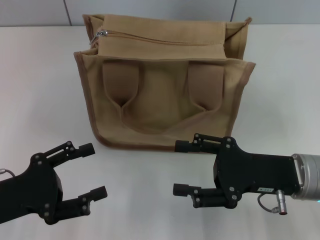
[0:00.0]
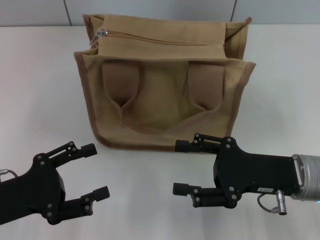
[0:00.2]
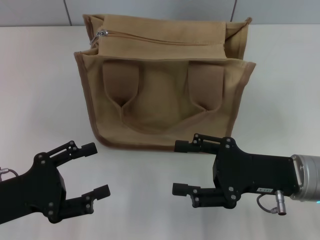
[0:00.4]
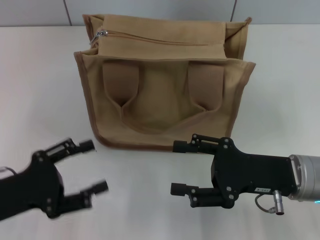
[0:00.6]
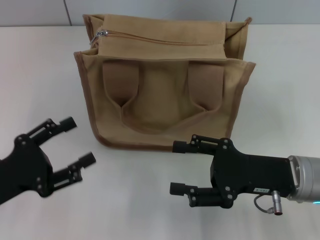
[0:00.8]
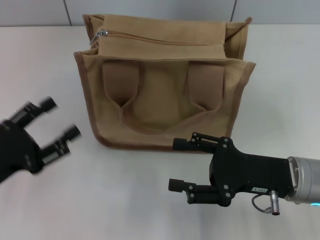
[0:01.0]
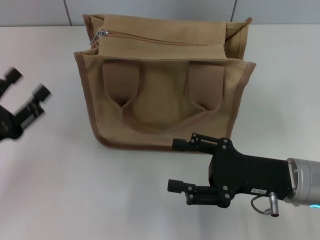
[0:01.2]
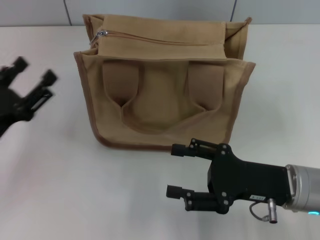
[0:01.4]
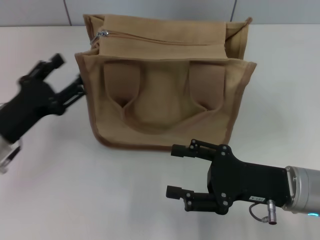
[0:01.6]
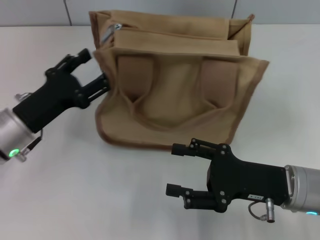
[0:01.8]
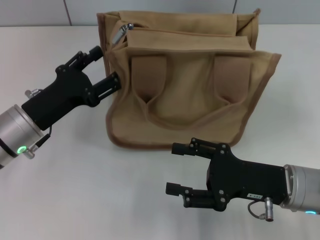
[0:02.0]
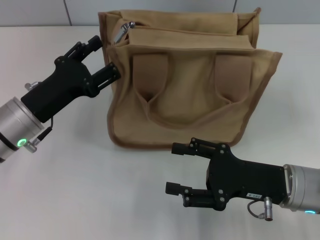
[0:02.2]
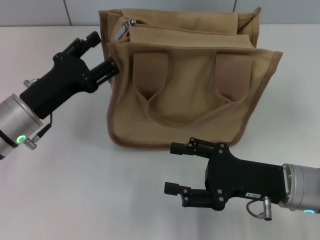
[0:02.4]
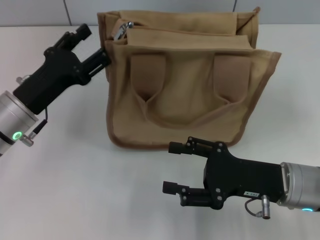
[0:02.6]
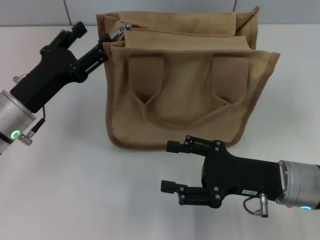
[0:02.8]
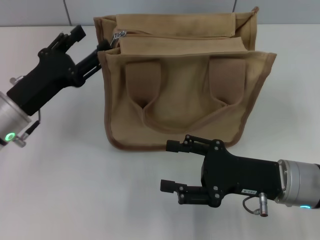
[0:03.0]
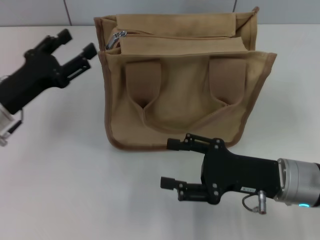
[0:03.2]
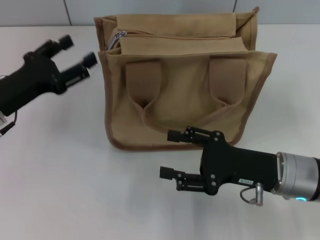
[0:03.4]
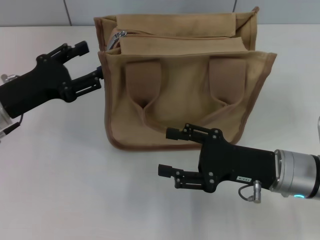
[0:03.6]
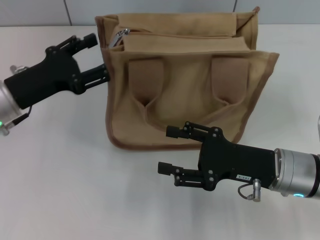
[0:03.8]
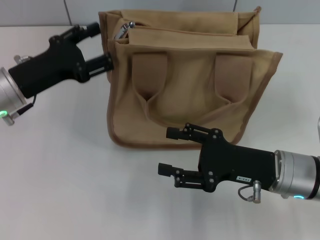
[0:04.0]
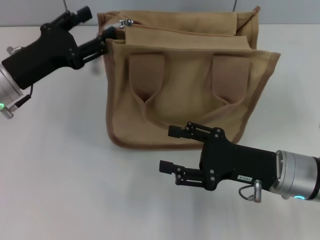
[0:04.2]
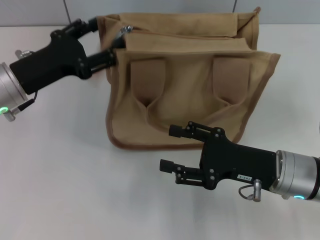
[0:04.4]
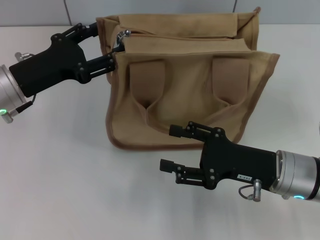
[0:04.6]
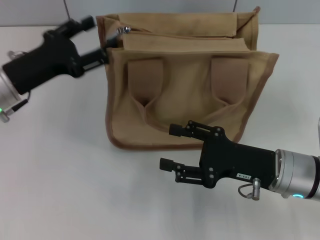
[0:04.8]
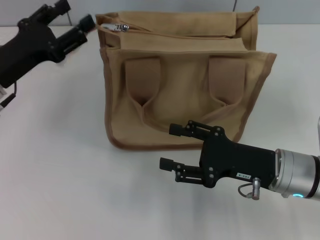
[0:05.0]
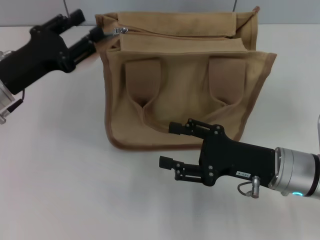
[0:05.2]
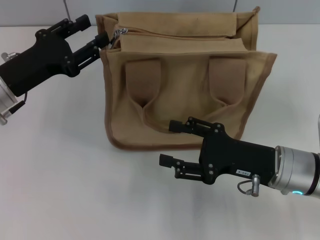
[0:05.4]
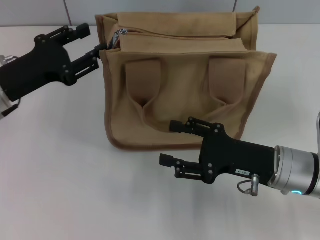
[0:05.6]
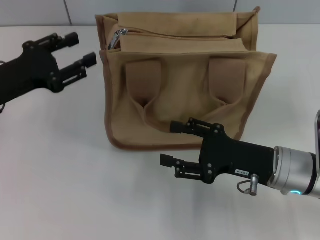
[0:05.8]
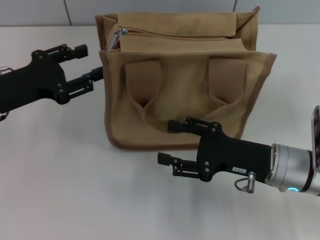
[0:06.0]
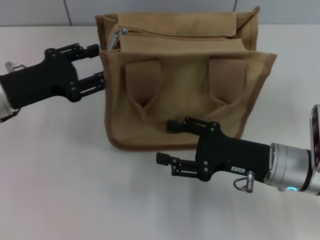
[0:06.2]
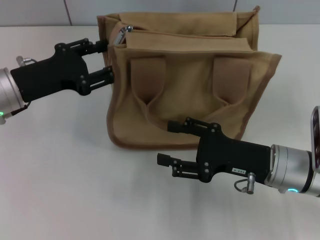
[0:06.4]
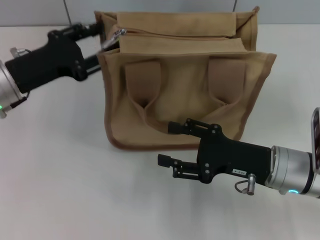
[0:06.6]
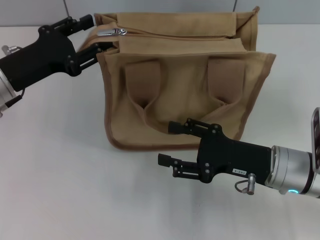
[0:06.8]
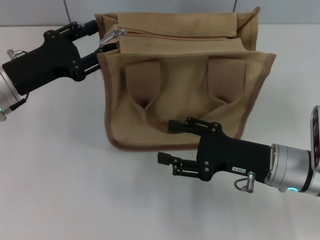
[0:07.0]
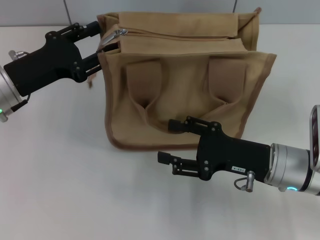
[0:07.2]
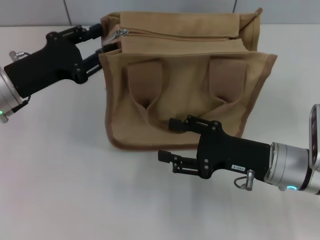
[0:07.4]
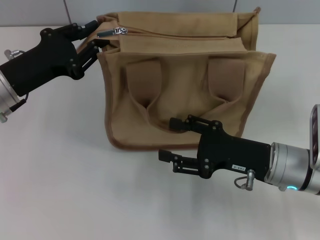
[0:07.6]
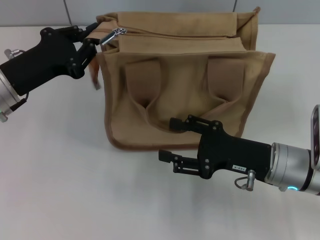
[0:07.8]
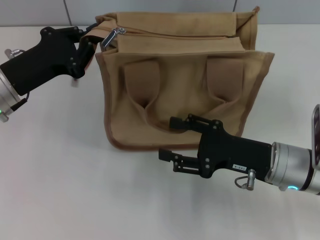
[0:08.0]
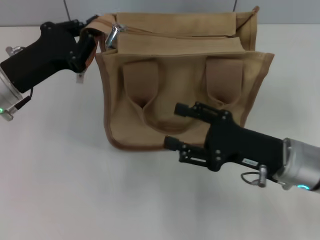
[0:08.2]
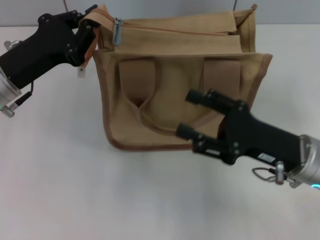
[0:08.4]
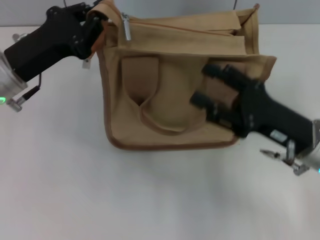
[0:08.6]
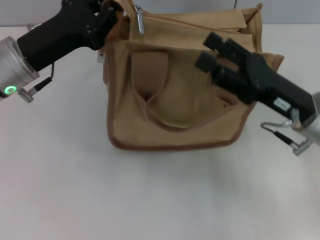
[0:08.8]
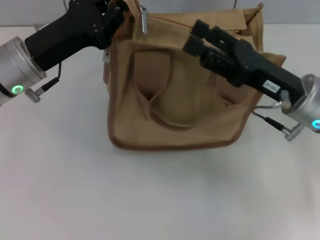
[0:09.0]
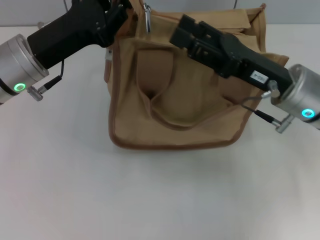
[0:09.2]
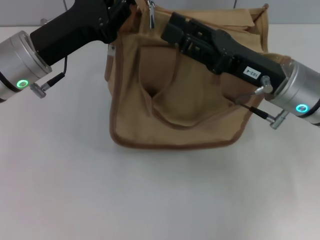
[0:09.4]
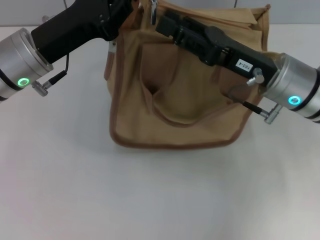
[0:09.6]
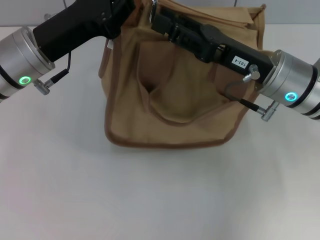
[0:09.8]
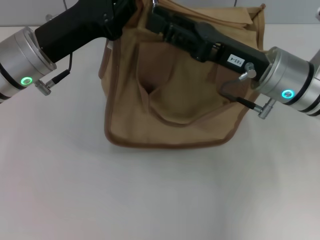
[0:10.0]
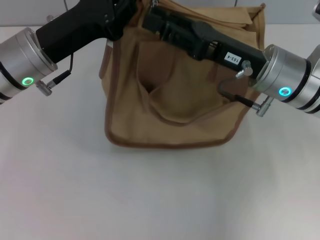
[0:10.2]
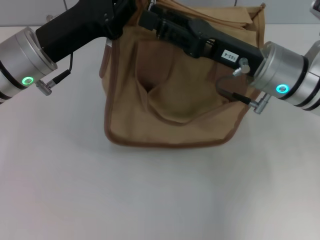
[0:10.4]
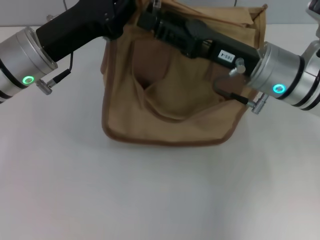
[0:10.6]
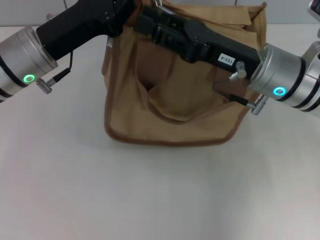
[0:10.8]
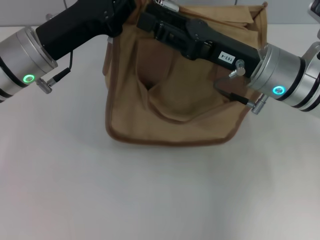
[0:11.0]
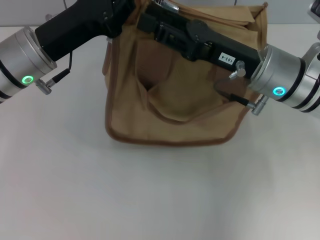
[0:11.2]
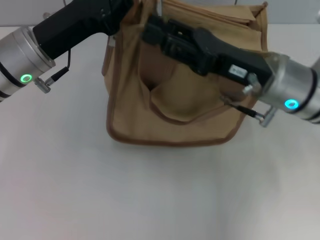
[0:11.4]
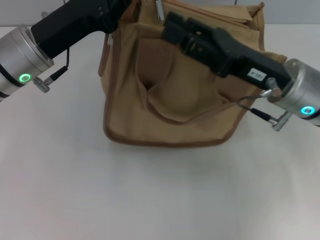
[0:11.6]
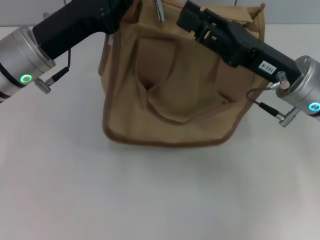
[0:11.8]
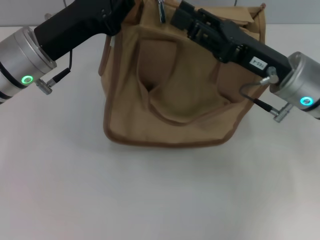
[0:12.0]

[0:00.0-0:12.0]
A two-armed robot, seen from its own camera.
0:00.0 to 0:01.6: The left gripper travels forward by roughly 10 cm.
0:03.0 to 0:04.4: The grippers stay close to where they were, moving slightly.
0:04.4 to 0:07.6: The grippers stay close to where they were, moving slightly.
0:07.6 to 0:09.0: The right gripper moves upward, approximately 5 cm; the left gripper ends up about 5 cm from where it was, and closes its fingers.
0:09.0 to 0:10.4: The right gripper ends up approximately 5 cm from where it was.
0:10.4 to 0:12.0: The grippers stay close to where they were, moving slightly.

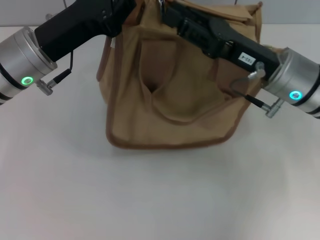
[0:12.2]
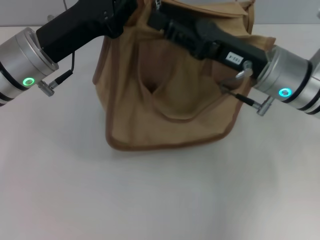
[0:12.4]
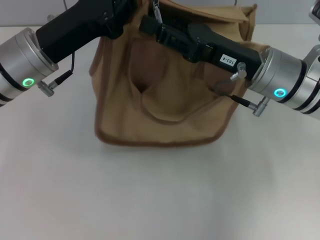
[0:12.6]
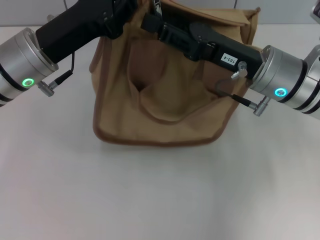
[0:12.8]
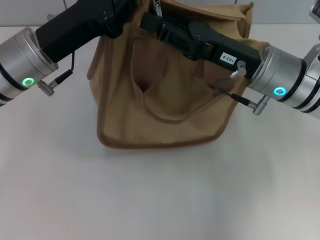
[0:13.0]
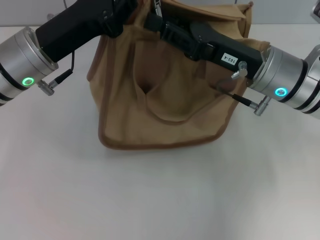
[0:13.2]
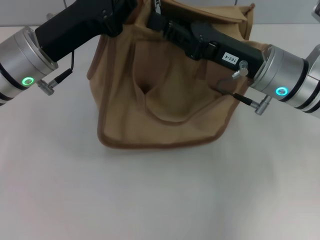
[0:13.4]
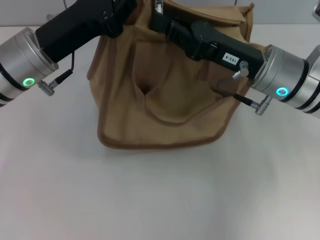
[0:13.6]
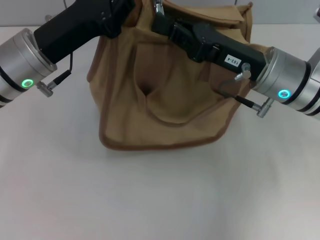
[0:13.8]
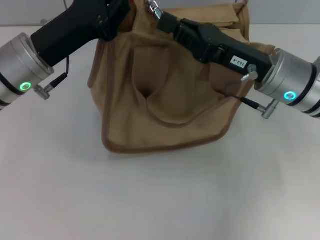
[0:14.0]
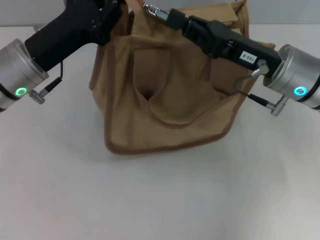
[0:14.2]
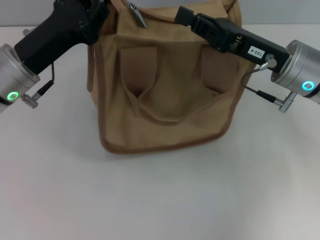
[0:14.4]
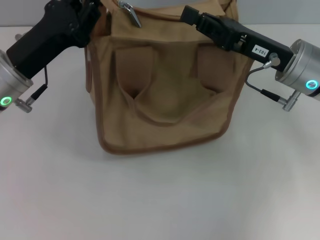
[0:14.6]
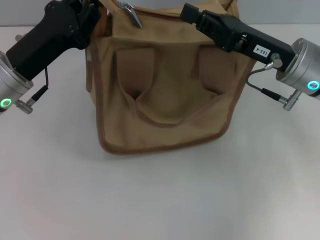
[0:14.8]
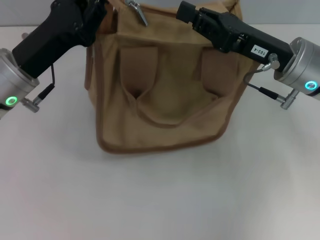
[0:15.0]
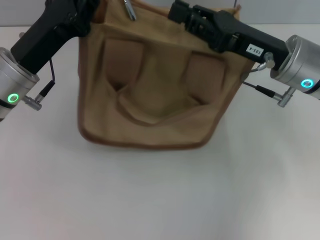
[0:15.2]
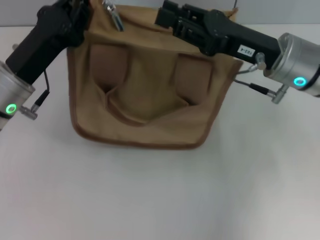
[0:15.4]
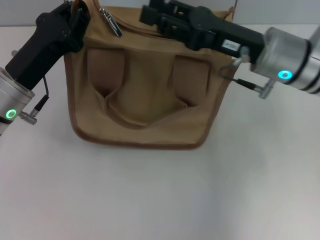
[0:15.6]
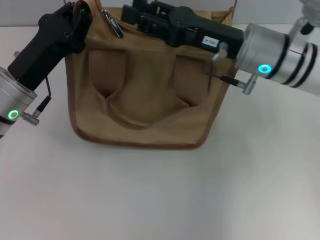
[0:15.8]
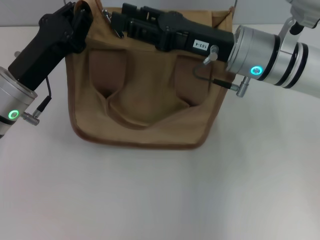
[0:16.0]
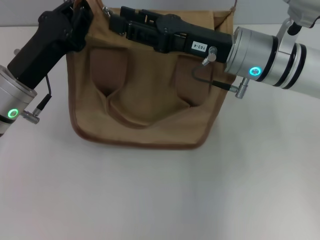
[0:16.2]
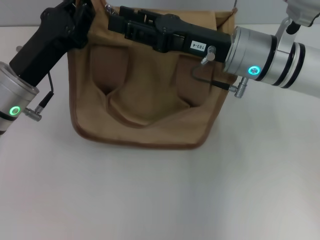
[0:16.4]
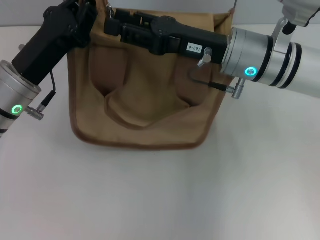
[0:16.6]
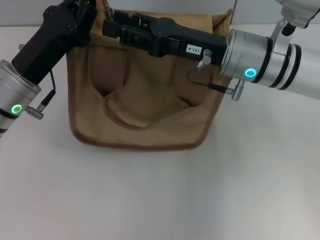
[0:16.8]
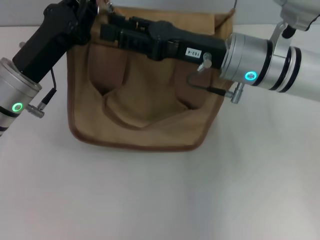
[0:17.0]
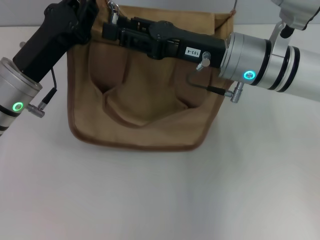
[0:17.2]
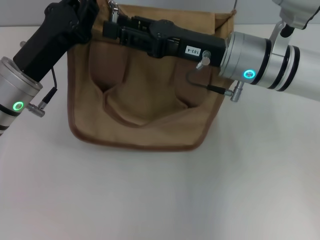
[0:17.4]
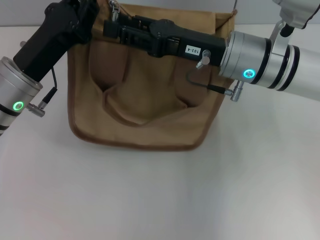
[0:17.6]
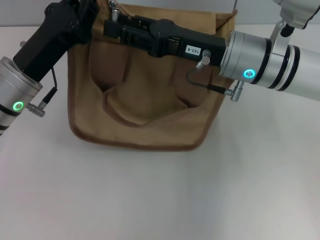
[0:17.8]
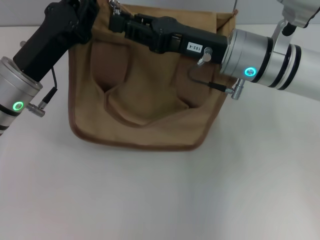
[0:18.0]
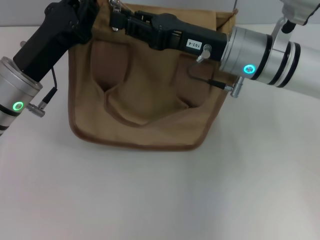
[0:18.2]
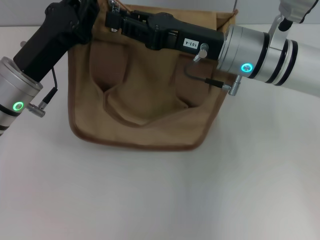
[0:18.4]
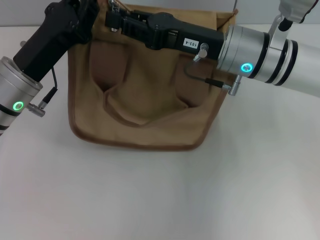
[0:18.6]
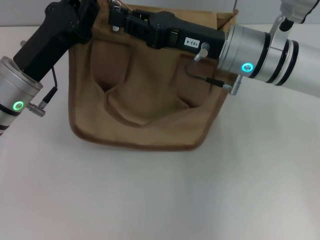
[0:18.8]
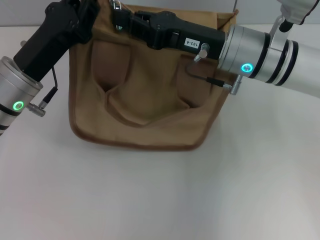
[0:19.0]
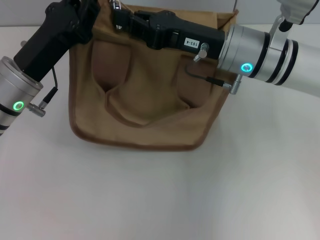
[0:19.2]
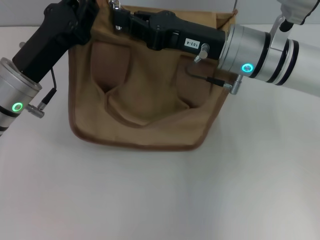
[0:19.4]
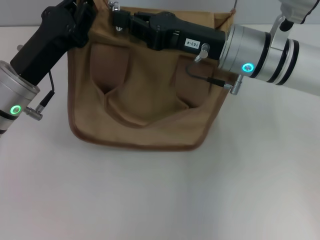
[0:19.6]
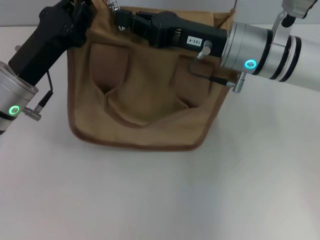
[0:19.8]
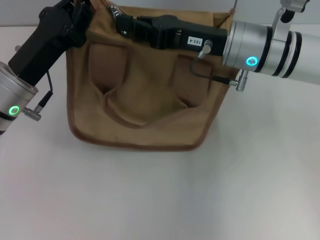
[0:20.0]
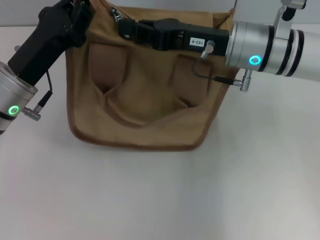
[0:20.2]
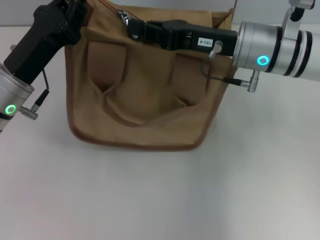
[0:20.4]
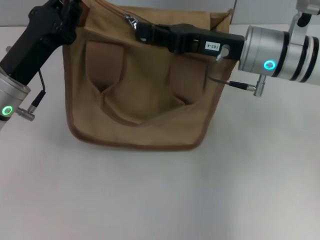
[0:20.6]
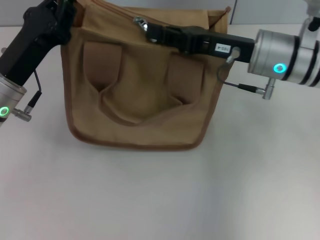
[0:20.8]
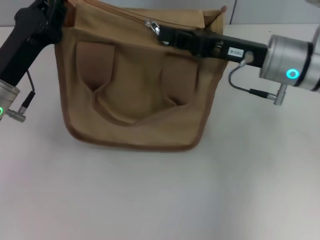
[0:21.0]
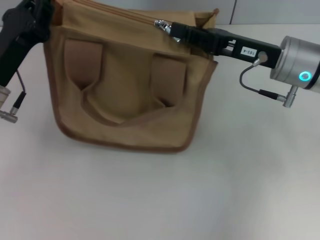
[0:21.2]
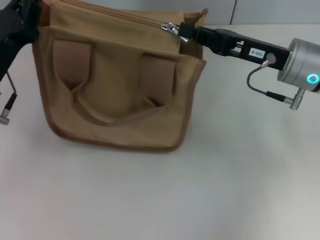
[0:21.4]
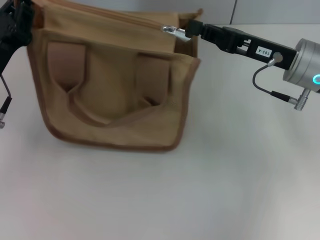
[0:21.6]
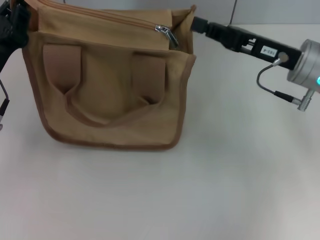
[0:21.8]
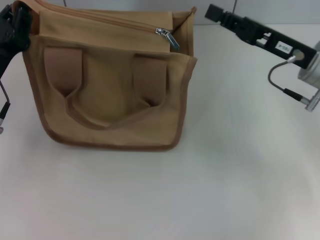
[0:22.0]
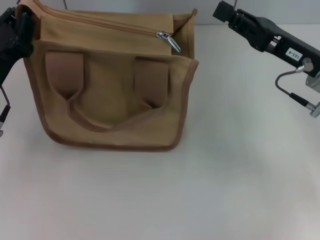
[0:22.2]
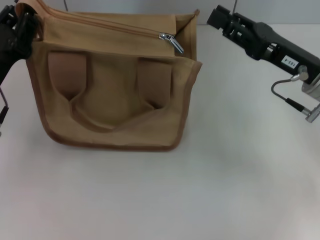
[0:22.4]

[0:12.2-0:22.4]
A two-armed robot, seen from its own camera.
Step, 0:12.2 to 0:21.6: Pull up the zipper with your right hand.
0:12.2 to 0:13.6: The right gripper closes up.
0:15.2 to 0:16.6: The right gripper shifts roughly 5 cm to the left, and opens up.
0:16.6 to 0:18.0: The two grippers keep their place.
0:18.0 to 0:19.4: The right gripper closes its fingers.
0:19.4 to 0:21.0: The right gripper goes about 5 cm to the right.
0:21.0 to 0:22.4: The right gripper ends up some 5 cm from where it was.
